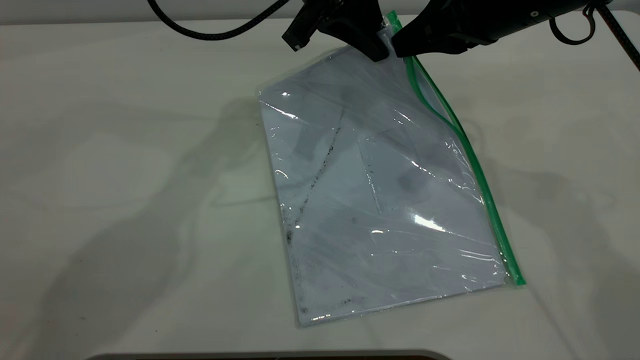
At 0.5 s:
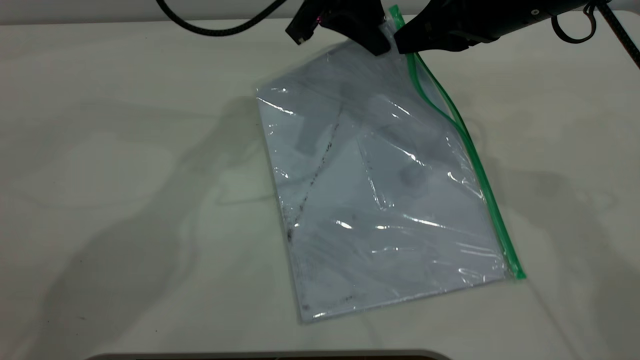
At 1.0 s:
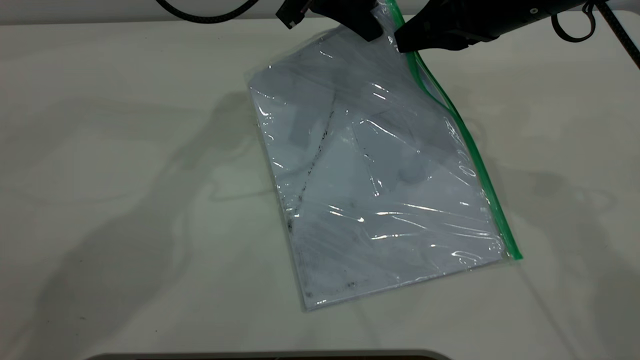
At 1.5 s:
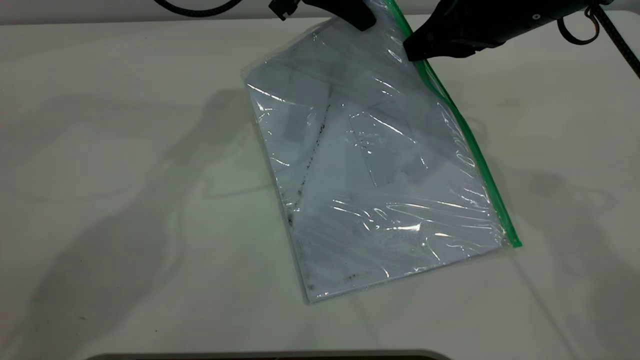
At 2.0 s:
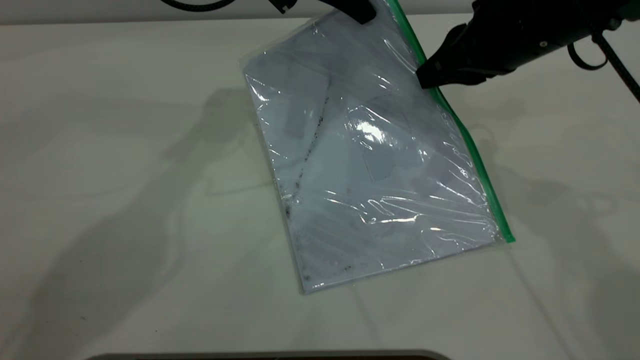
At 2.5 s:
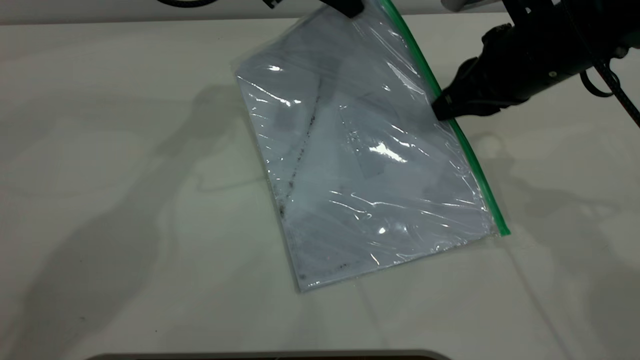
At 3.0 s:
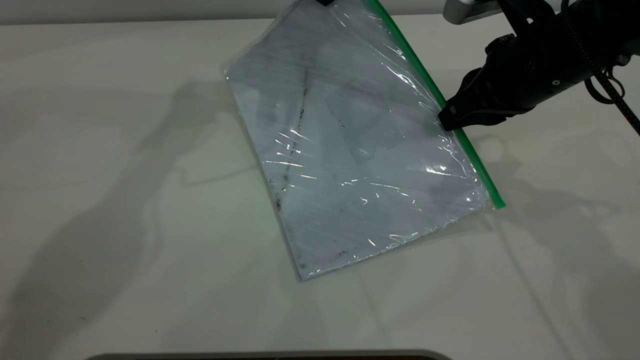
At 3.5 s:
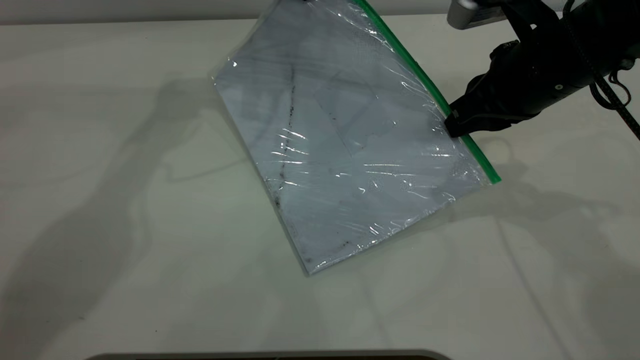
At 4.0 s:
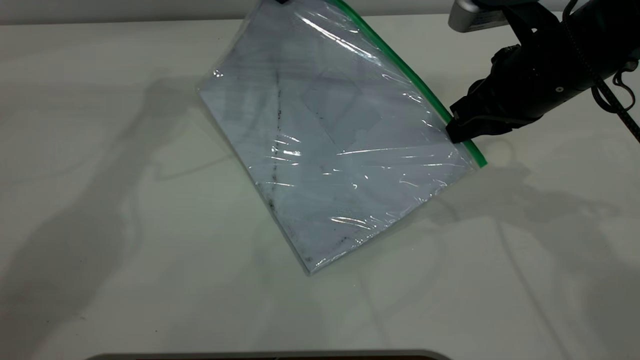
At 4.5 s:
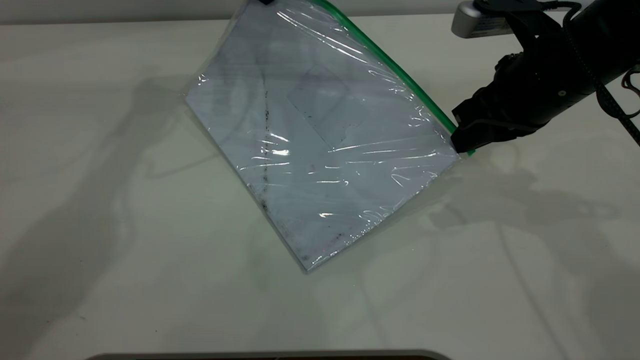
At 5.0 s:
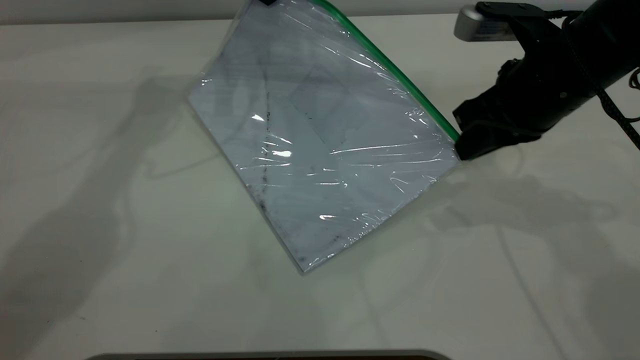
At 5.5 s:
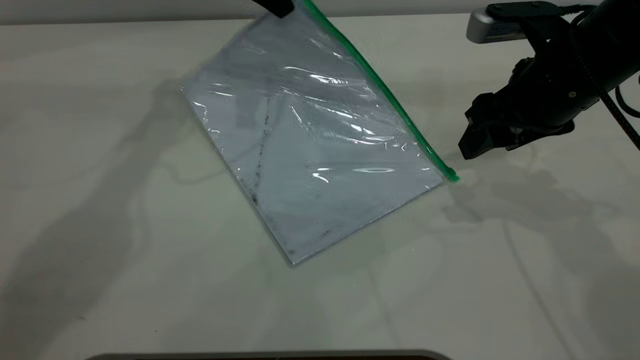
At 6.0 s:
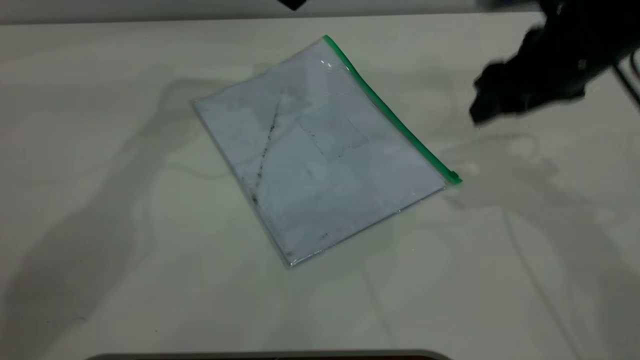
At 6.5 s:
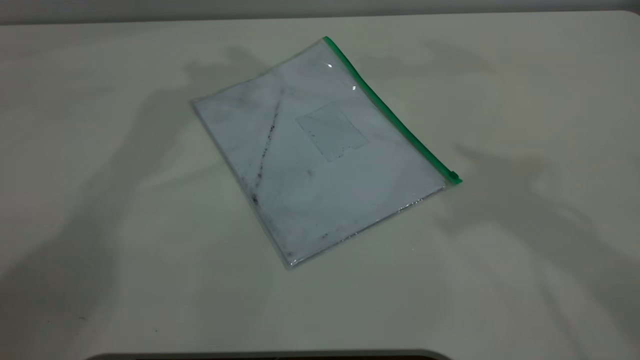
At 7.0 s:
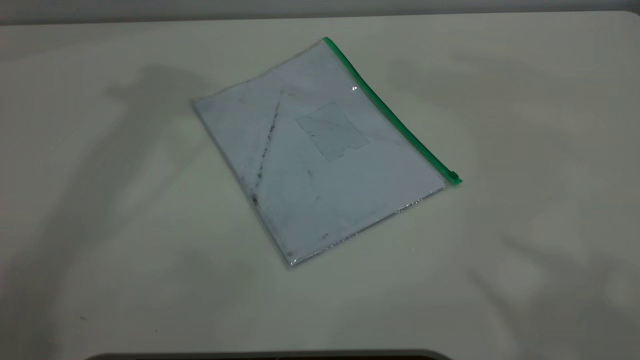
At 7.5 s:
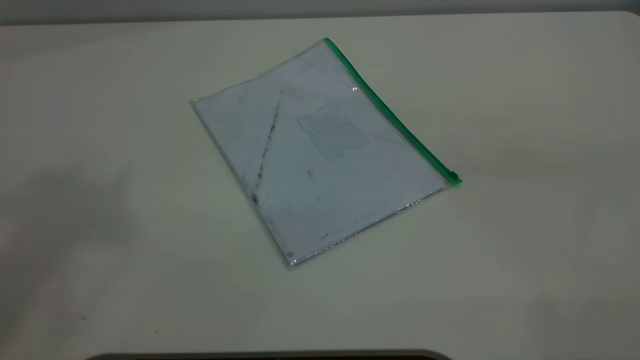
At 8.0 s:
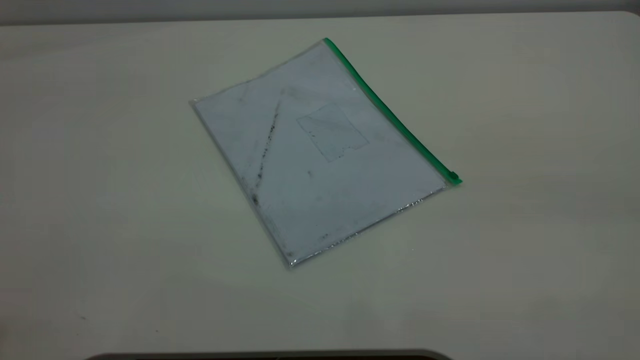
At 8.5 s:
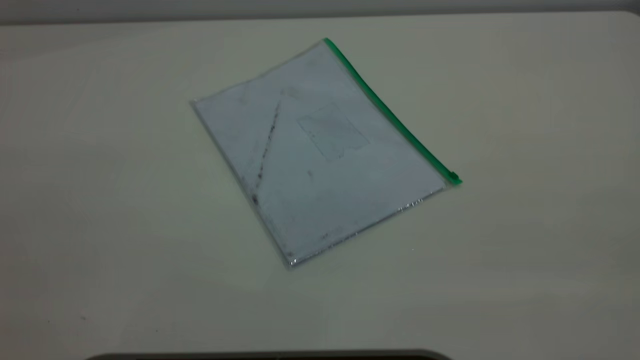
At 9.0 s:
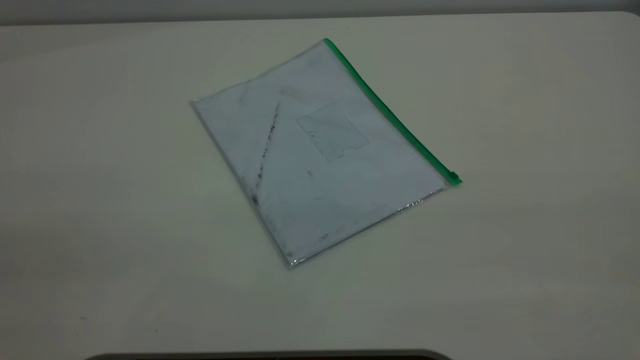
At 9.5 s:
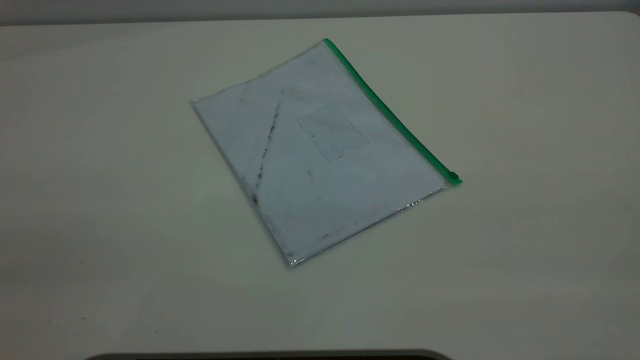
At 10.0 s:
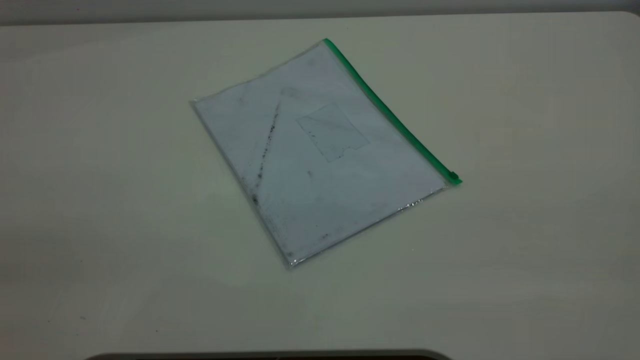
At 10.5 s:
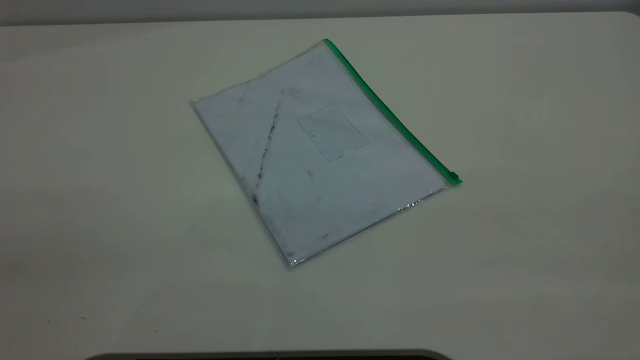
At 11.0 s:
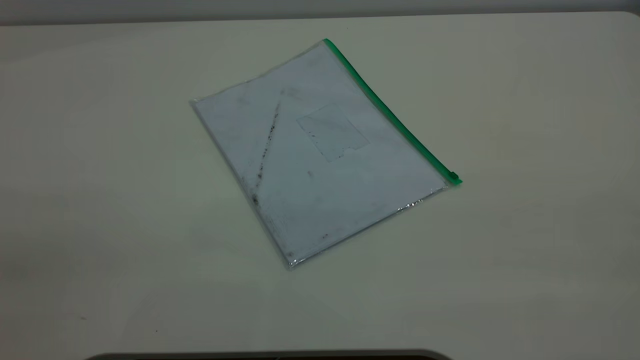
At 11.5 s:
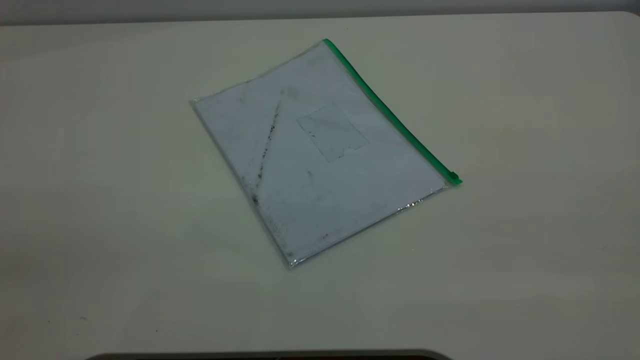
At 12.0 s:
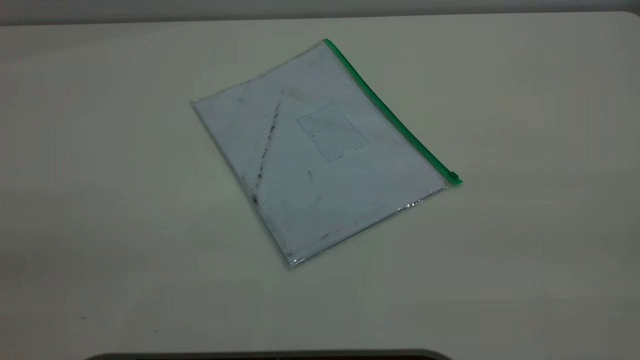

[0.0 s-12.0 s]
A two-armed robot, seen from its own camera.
Step, 0.0 to 5.0 s: Pulling up the zipper on the transparent plastic bag with the right gripper to close it.
0.0 to 2.0 s: The grippers move only a little.
2.0 to 4.0 s: The left gripper goes roughly 10 cm to the left.
4.0 to 6.0 s: The left gripper opens its fingers. Meanwhile the right gripper opens its fingers.
6.0 to 8.0 s: The right gripper shifts some 40 cm backward and upward.
